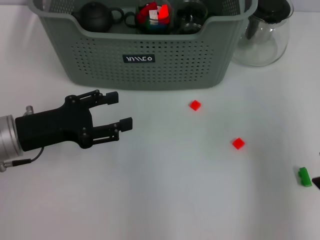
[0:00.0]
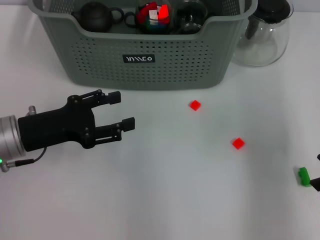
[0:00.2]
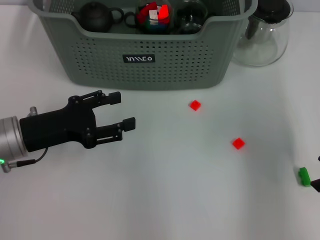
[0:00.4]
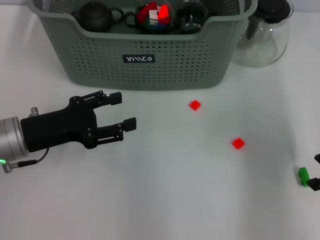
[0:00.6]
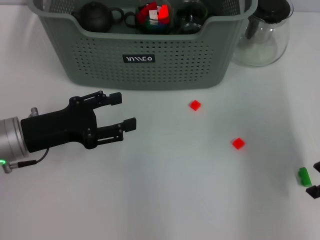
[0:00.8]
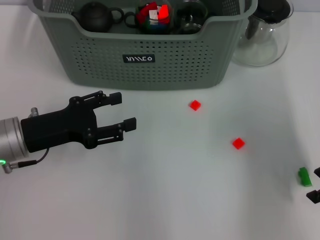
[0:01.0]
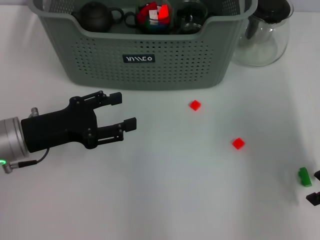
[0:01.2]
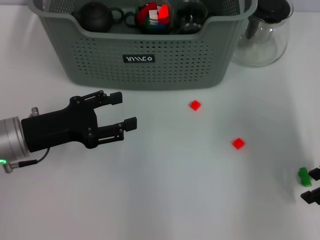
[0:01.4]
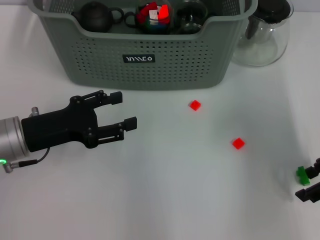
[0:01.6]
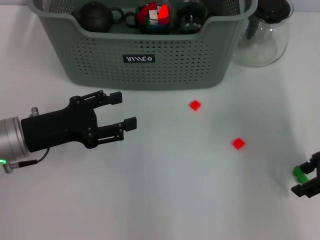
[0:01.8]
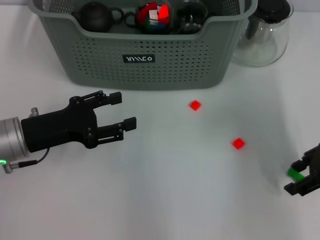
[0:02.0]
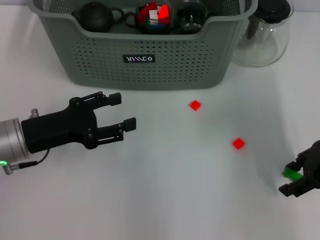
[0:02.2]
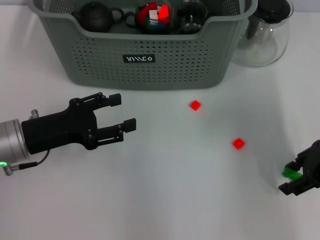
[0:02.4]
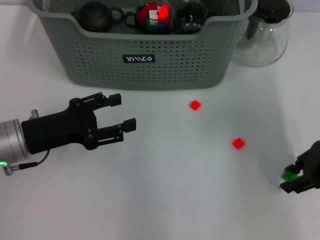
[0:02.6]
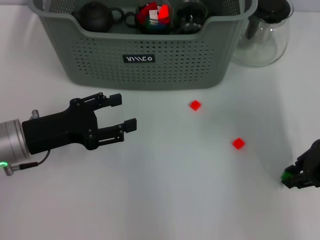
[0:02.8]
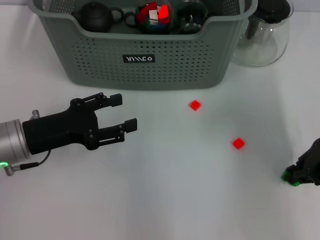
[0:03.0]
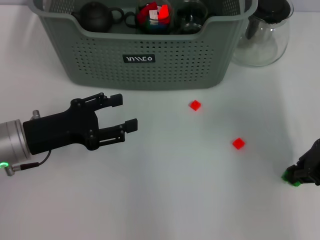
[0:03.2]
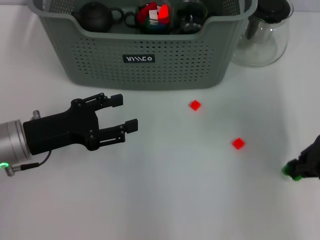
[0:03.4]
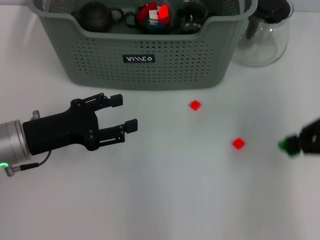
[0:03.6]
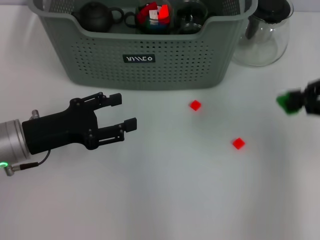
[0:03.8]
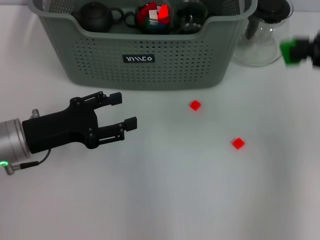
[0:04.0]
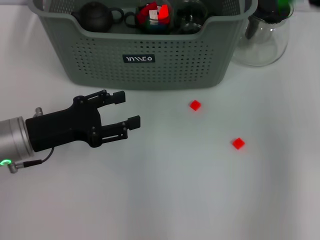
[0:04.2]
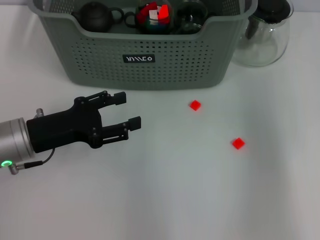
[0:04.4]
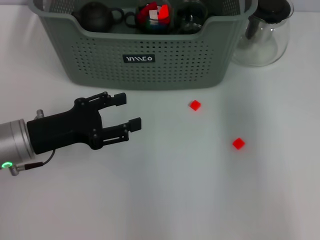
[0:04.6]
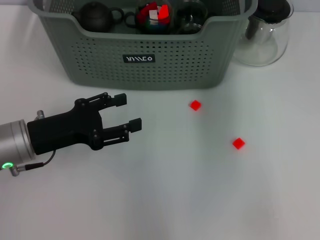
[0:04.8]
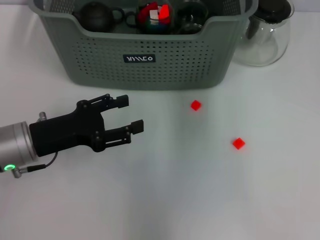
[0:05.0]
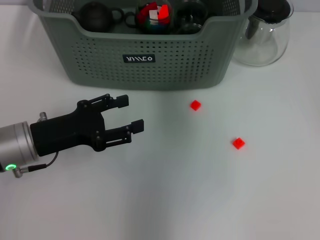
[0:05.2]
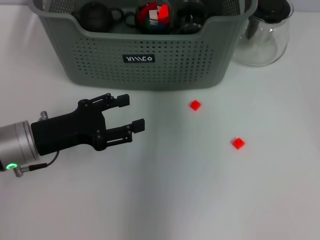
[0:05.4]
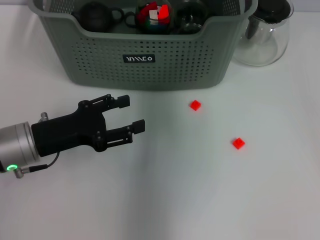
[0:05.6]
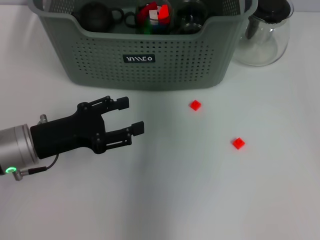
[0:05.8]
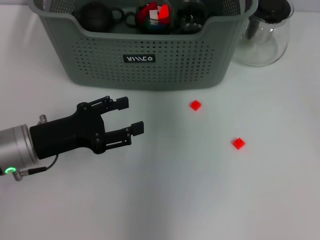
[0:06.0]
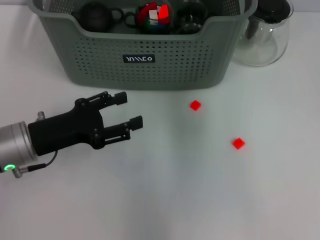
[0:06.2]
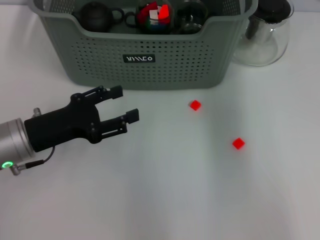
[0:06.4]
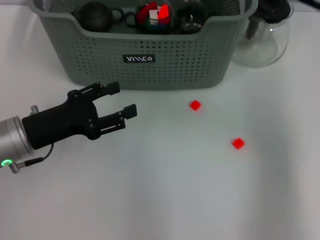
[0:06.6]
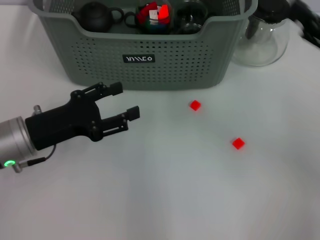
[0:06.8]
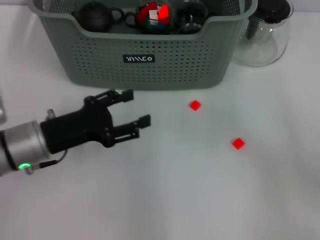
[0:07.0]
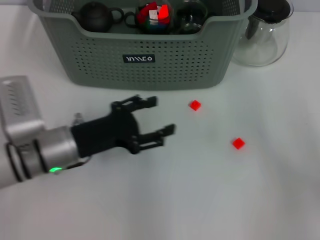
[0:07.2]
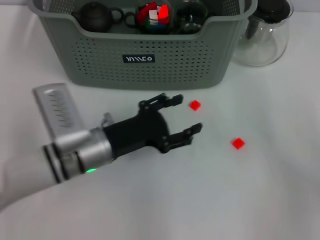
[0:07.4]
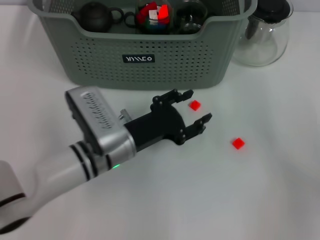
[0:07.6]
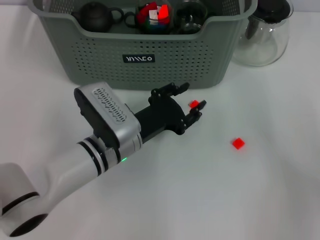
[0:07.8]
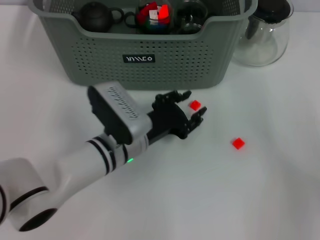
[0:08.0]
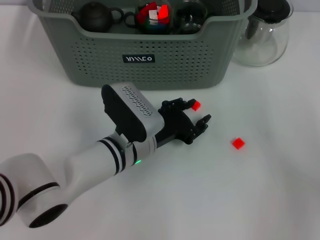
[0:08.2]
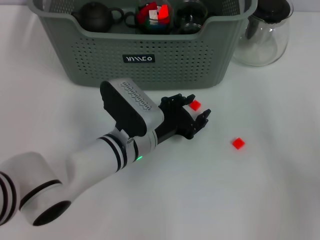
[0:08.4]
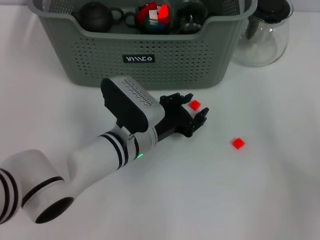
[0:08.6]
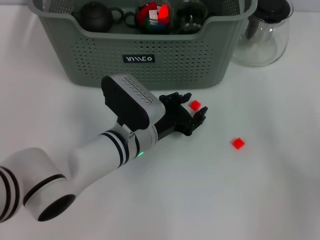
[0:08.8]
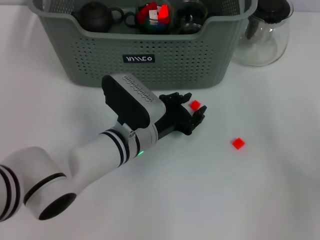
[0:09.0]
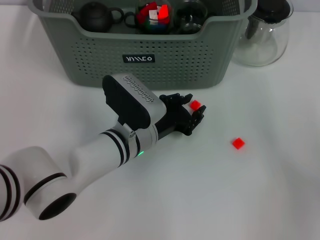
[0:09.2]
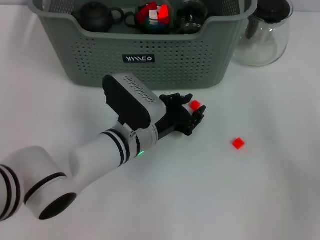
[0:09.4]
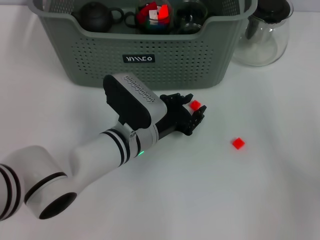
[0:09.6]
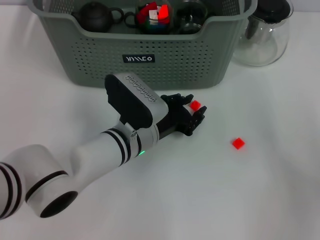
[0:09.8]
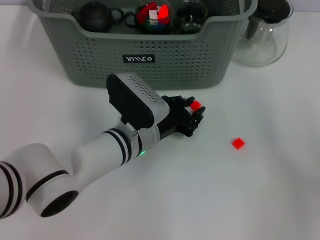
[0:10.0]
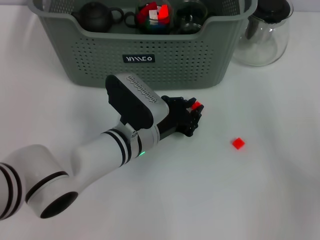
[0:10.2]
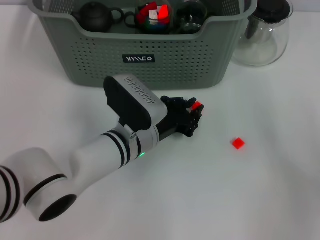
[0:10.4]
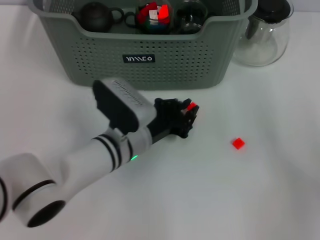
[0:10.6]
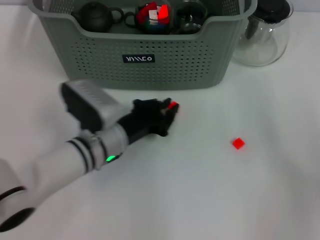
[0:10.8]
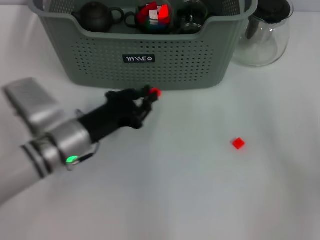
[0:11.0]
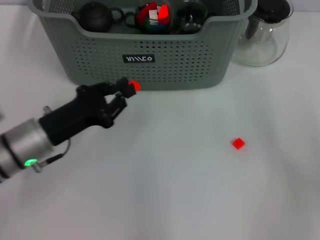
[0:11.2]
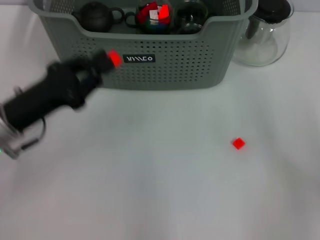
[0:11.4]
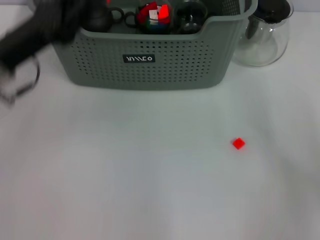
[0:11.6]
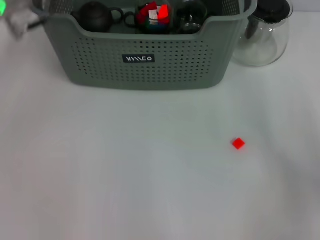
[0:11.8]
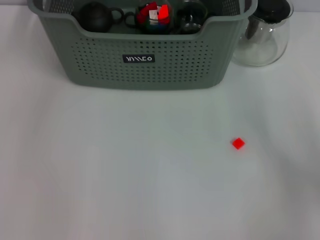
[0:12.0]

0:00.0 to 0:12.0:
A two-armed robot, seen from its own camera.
Task of the whole recording: pick up the teacup on the table and place it into the storage bin, pick up the block on the table and place it into the storage bin.
Step, 0:00.0 to 0:03.0: Grasp the green block with right gripper.
Step, 0:03.2 to 0:05.6: Place the green block in the storage box with right gripper.
Step, 0:05.8 to 0:10.2: Grasp the orange block with left gripper.
0:00.0 to 0:01.6: The right gripper goes some 5 cm downward.
0:01.6 to 0:03.0: The right gripper closes.
0:03.0 to 0:04.4: The right gripper travels upward by about 15 cm.
0:04.4 to 0:06.0: The right gripper shifts about 20 cm to the left and forward.
0:06.0 to 0:07.6: The left gripper travels to the right by roughly 15 cm; the right gripper is displaced to the right, backward and downward by about 40 cm, and opens up.
0:07.6 to 0:09.0: There are only small adjustments of the grippers.
0:09.0 to 0:10.4: The two grippers keep their place.
0:10.4 to 0:12.0: The left gripper shifts some 30 cm upward, forward and to the left.

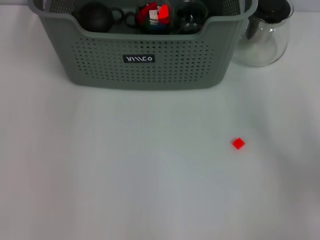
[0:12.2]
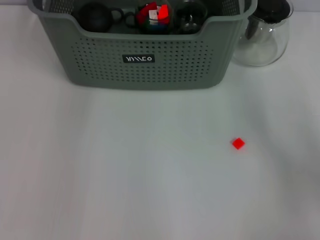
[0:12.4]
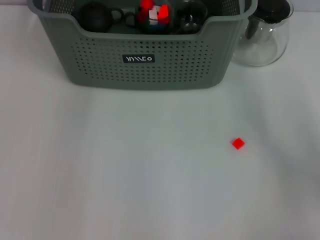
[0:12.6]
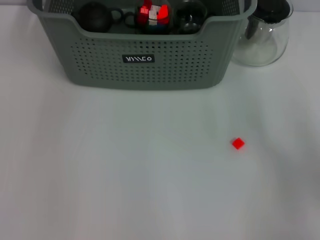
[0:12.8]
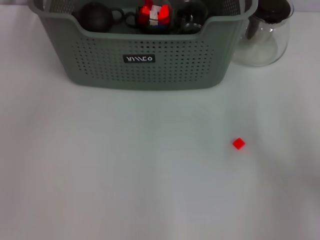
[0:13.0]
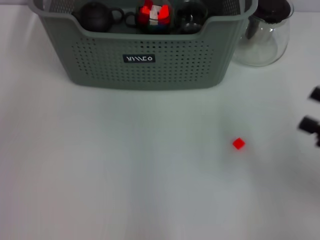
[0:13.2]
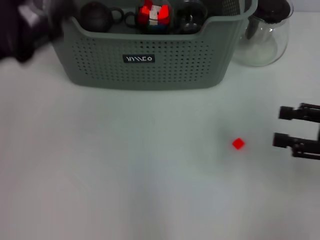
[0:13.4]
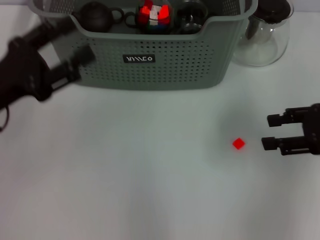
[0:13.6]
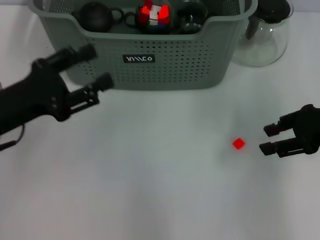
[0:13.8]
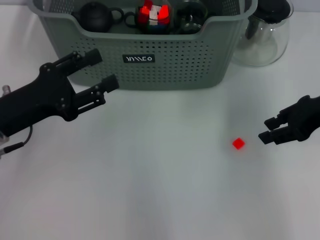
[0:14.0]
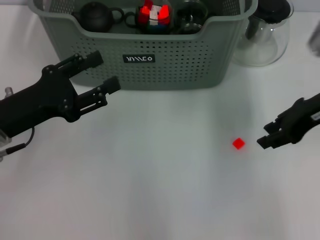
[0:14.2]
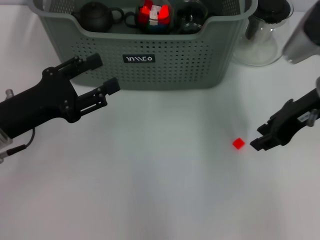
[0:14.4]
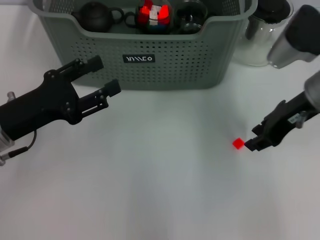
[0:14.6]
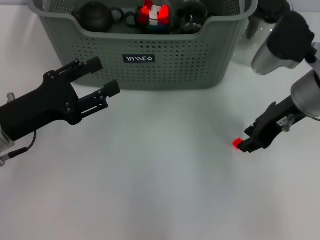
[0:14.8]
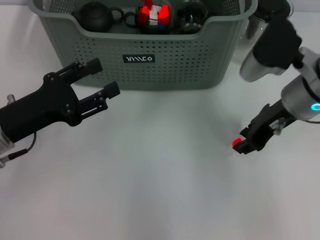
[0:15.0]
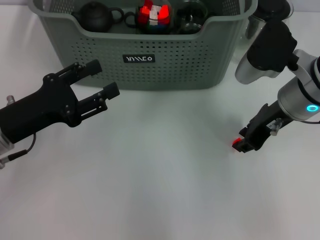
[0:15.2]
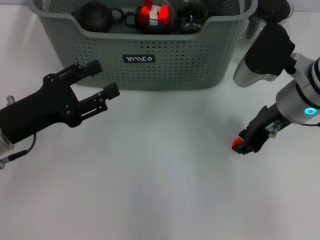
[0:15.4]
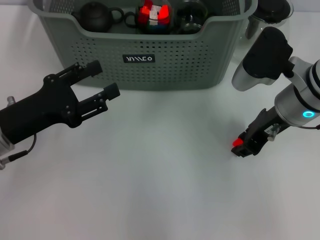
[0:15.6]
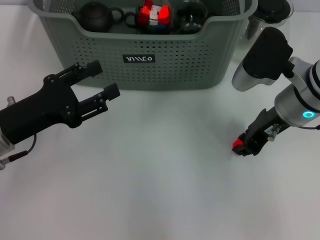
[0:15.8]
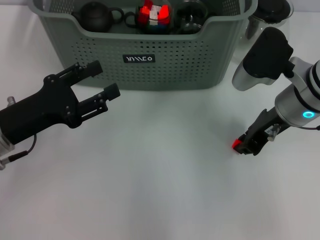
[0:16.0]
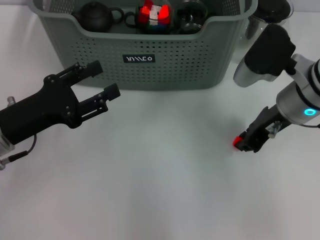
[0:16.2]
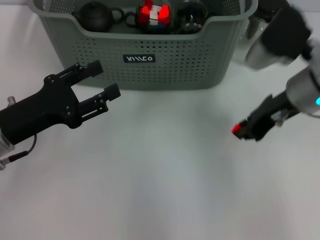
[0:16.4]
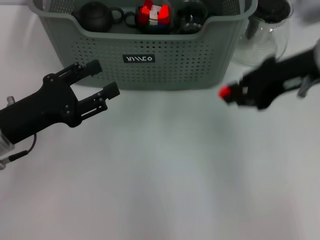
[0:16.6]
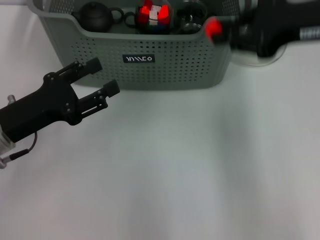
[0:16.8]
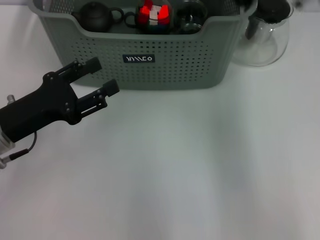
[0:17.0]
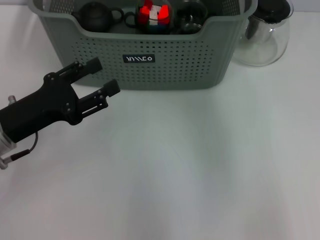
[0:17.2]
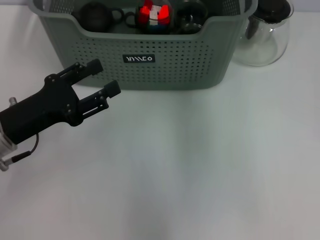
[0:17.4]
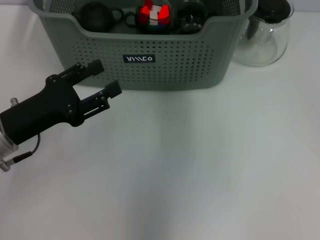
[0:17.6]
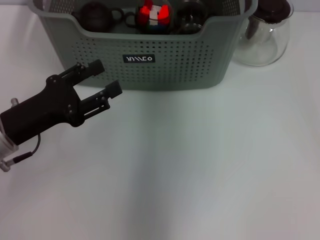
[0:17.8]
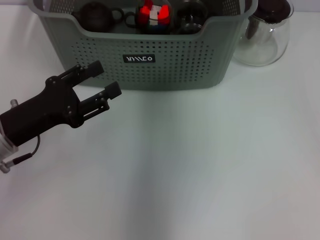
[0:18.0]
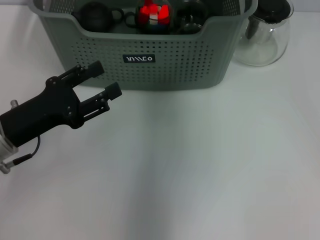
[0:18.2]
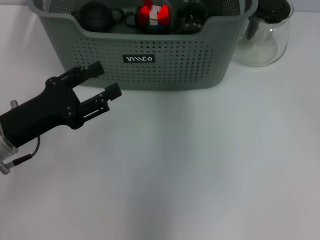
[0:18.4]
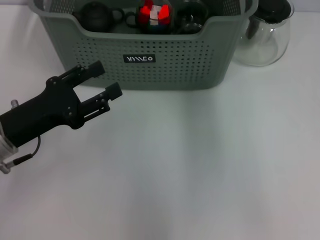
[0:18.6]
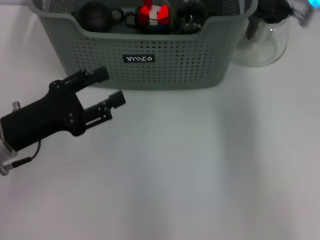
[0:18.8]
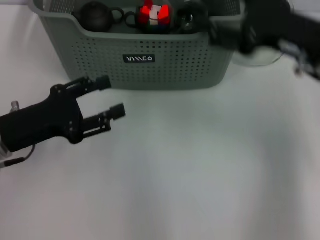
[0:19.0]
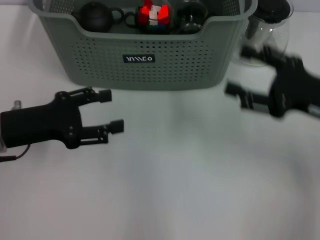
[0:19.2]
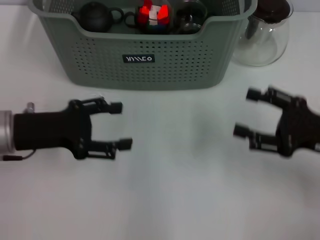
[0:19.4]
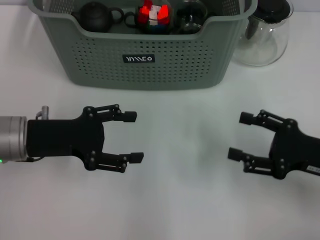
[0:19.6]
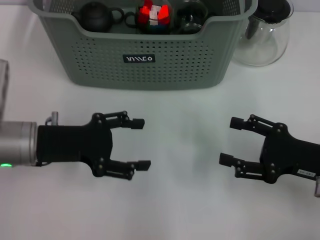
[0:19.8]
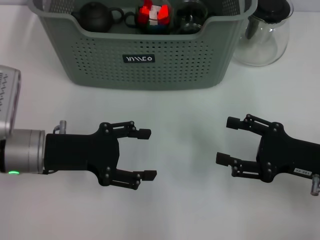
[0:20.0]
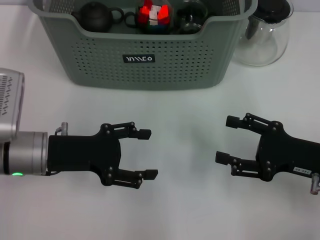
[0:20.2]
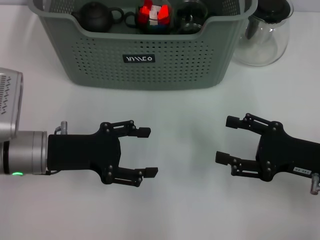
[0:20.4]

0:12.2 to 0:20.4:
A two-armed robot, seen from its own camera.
Task of the whole recording: pick up the teacup on the table and place it into the storage bin, pick up the block on the table and place it into the storage bin.
Step, 0:12.8 to 0:15.8: Grasp the orange block with right gripper.
Step, 0:16.0 to 0:18.2: Place the orange block in the storage box with right gripper.
0:12.2 to 0:13.8: The left gripper heads backward, downward and to the left, covering about 30 cm, and opens; the right gripper travels forward and to the left by some 10 cm.
0:13.8 to 0:15.4: The right gripper shifts some 10 cm to the left.
0:15.4 to 0:17.2: The right gripper travels upward by some 15 cm.
0:17.2 to 0:18.8: The right gripper travels to the left and back again, roughly 10 cm each way, and opens up.
0:18.8 to 0:20.4: The right gripper goes roughly 25 cm downward, backward and to the right.
